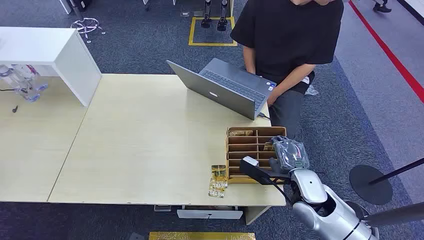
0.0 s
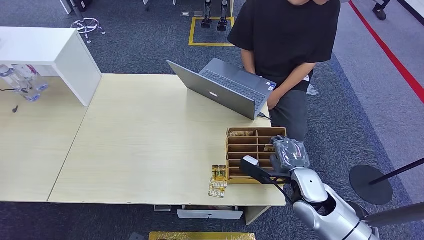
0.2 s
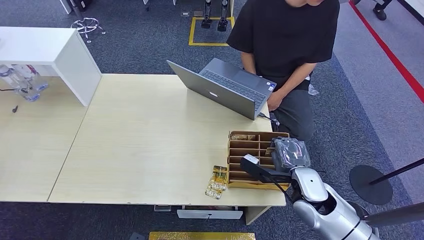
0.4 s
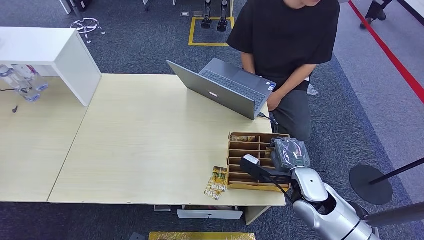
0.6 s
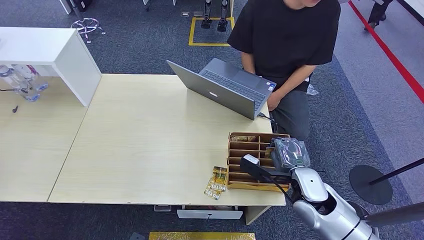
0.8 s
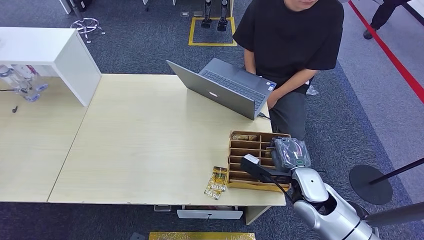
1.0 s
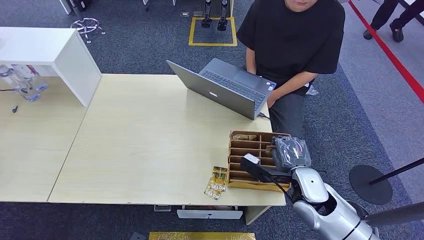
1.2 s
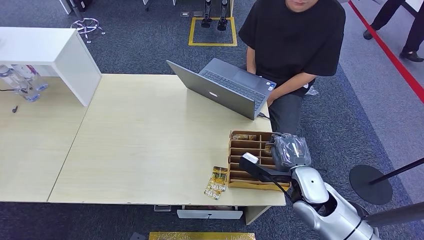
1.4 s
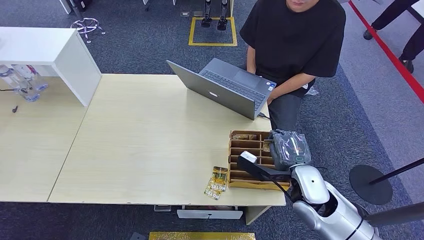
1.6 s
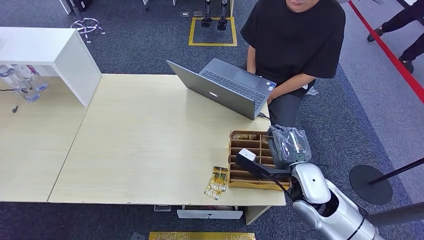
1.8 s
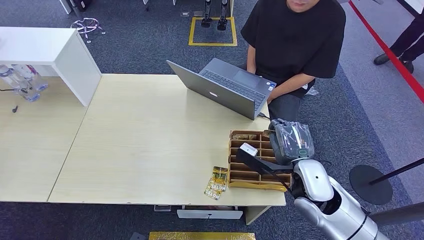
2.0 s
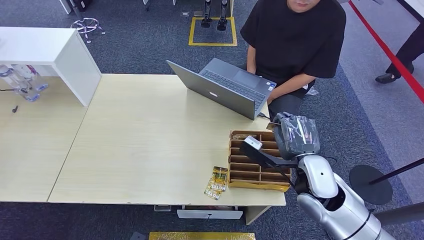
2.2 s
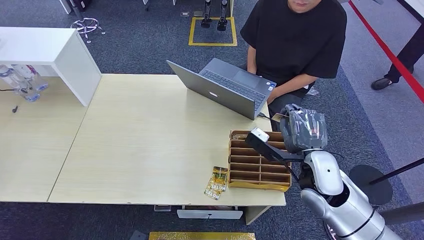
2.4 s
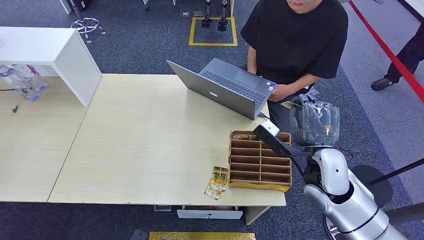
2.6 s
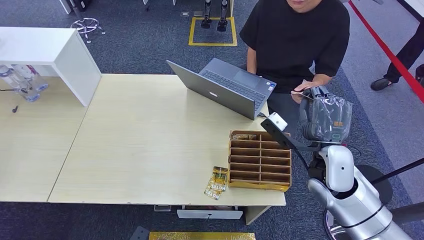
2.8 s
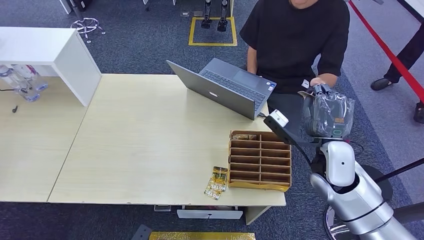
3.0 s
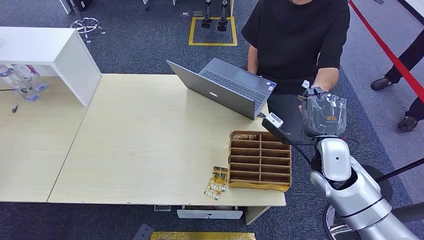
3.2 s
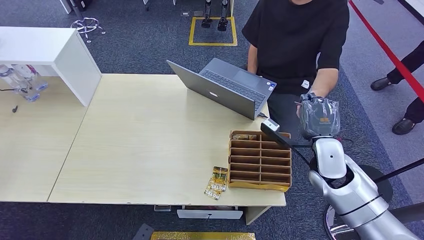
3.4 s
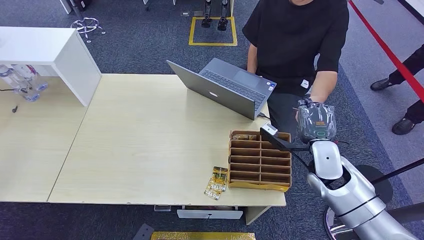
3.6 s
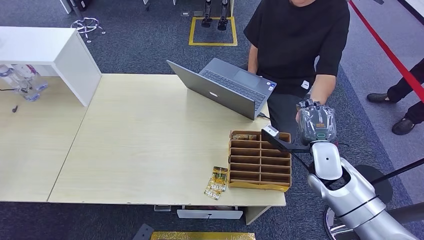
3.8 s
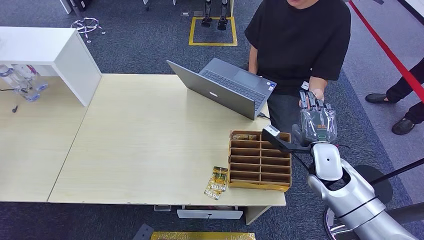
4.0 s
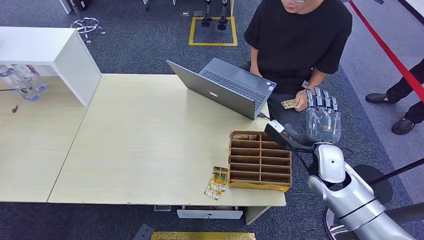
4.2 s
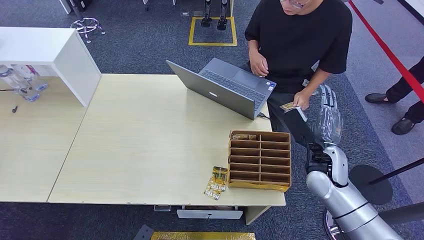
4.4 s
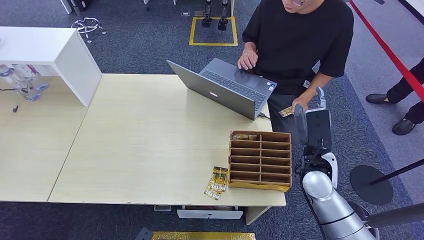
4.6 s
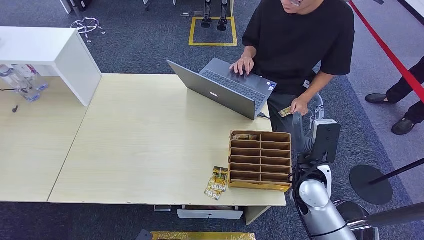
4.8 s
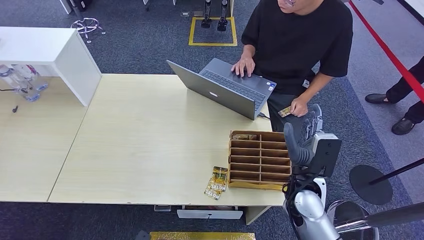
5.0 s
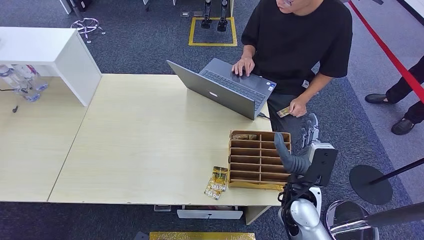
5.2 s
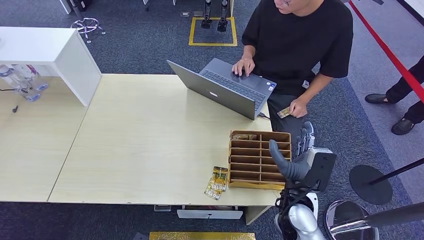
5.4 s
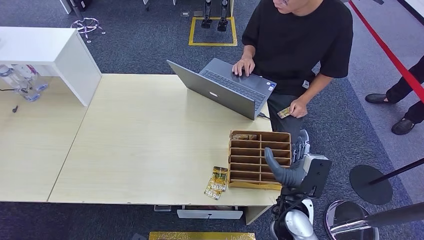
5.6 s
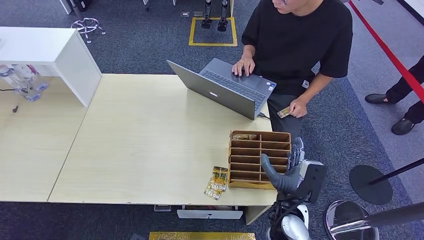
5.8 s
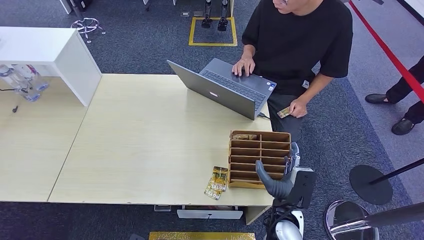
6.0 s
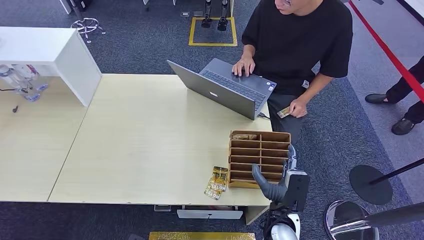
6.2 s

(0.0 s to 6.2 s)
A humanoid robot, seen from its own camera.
Task of the whole recording: Pick up the card and hand it to the target person.
Step, 0.0 s - 2.0 s: Pick up the key card from the card box.
Step, 2.2 s - 6.0 s: Hand the key card to the target.
1.6 s - 3.2 s: The right hand is displaced forward by roughly 5 cm.
4.6 s - 6.2 s: The right hand travels to the left, backward and downward by approximately 15 cm.
